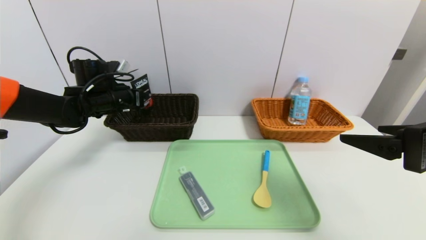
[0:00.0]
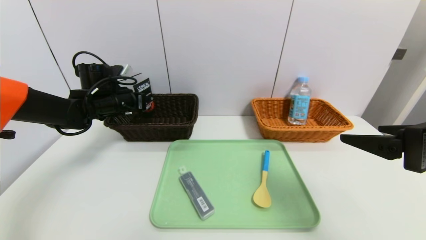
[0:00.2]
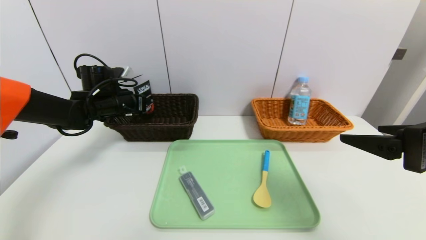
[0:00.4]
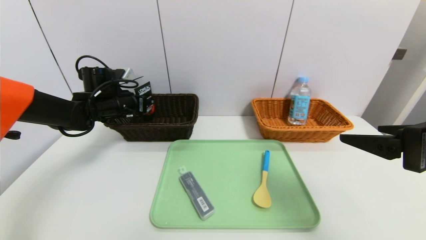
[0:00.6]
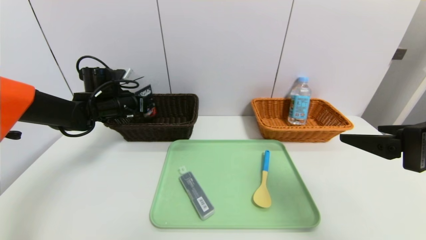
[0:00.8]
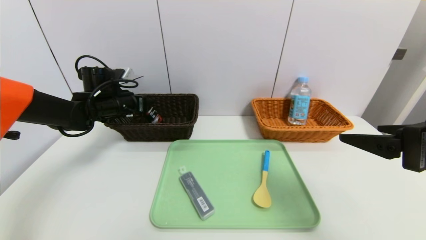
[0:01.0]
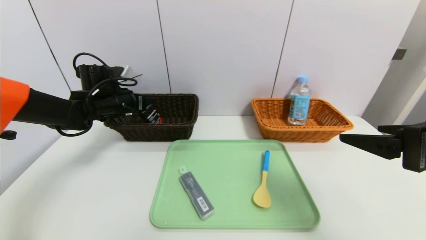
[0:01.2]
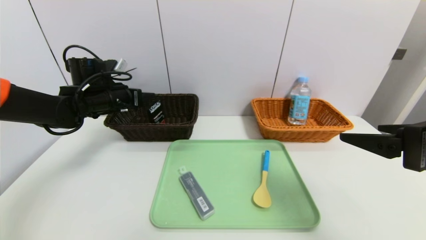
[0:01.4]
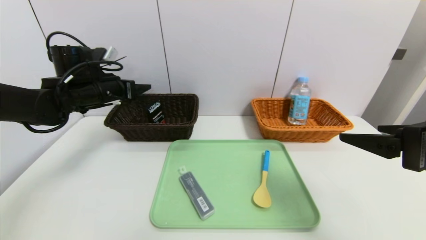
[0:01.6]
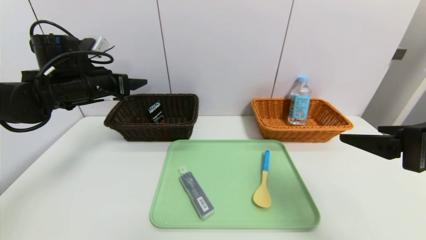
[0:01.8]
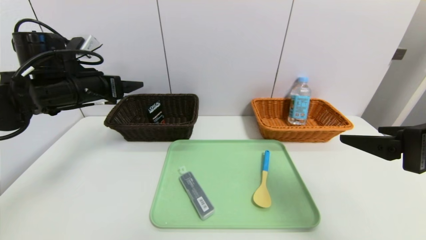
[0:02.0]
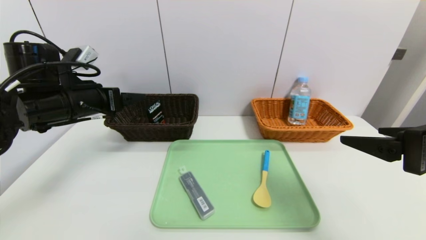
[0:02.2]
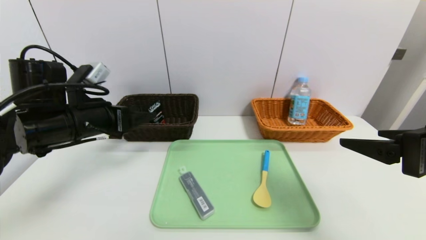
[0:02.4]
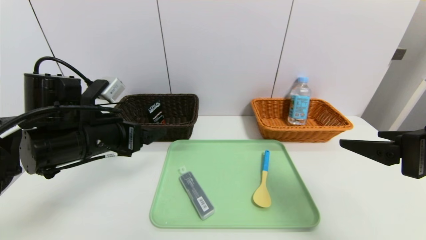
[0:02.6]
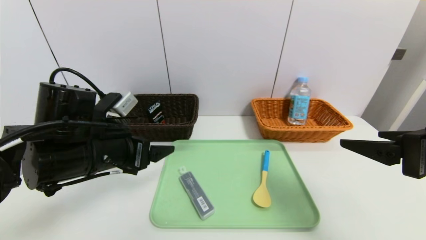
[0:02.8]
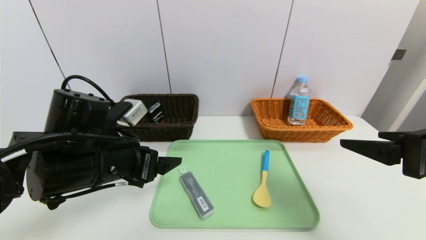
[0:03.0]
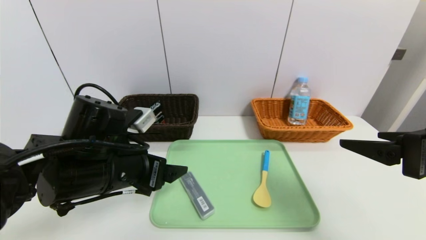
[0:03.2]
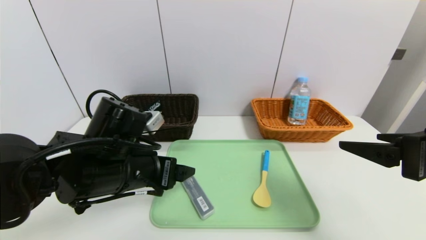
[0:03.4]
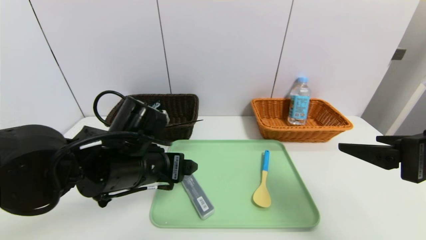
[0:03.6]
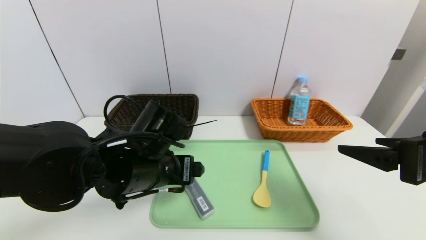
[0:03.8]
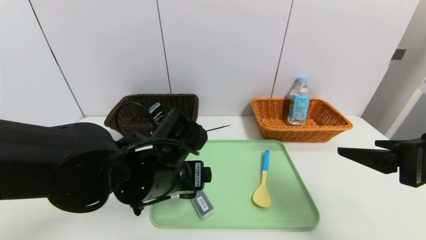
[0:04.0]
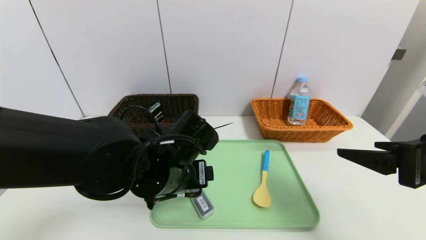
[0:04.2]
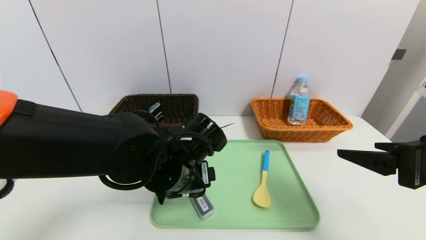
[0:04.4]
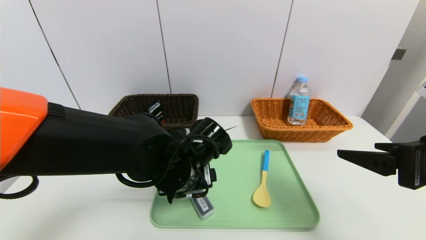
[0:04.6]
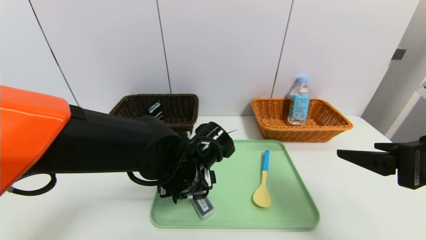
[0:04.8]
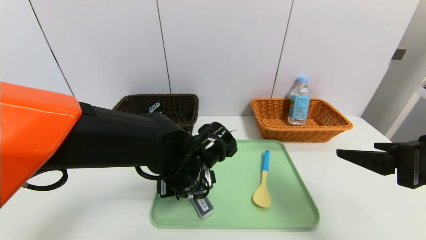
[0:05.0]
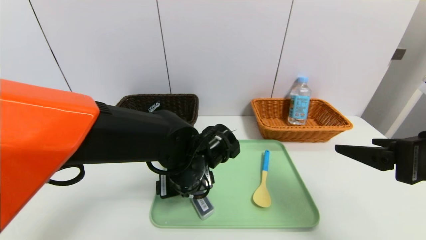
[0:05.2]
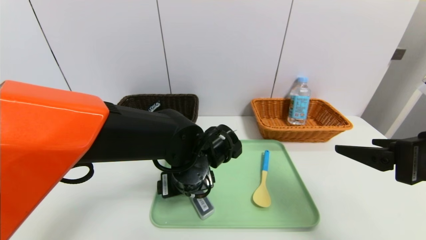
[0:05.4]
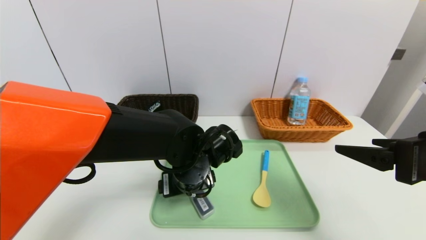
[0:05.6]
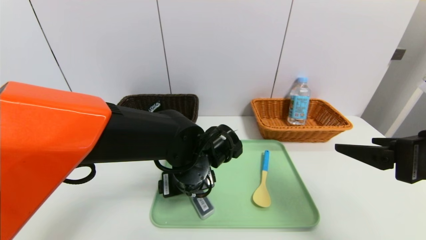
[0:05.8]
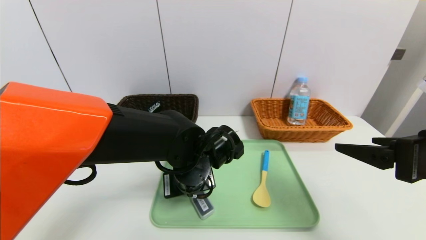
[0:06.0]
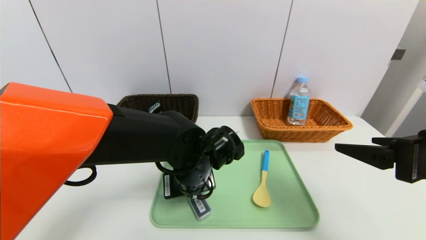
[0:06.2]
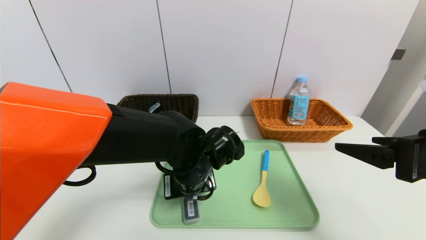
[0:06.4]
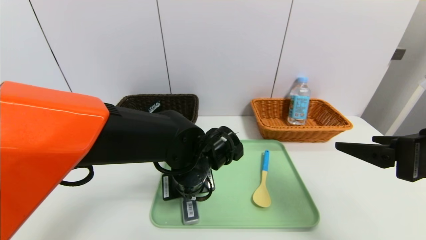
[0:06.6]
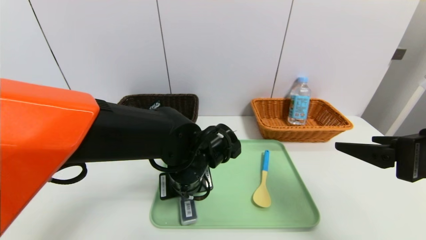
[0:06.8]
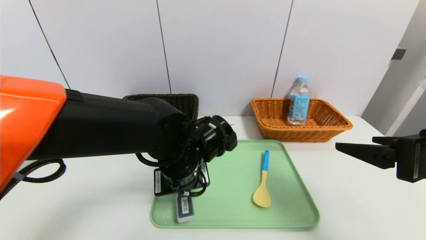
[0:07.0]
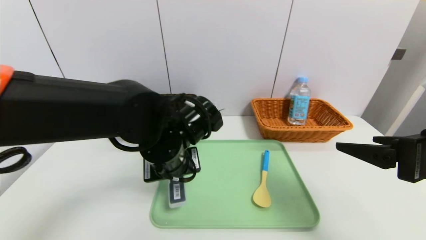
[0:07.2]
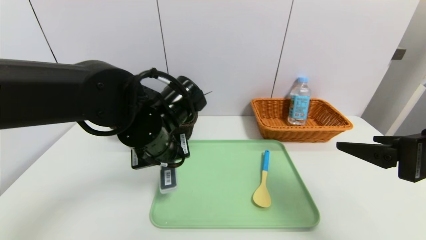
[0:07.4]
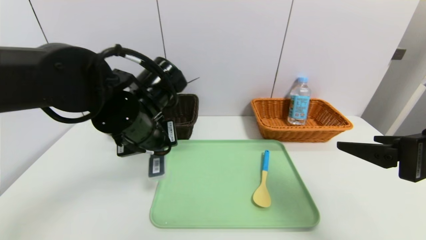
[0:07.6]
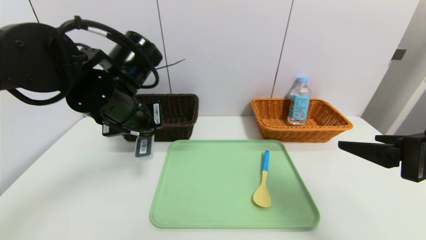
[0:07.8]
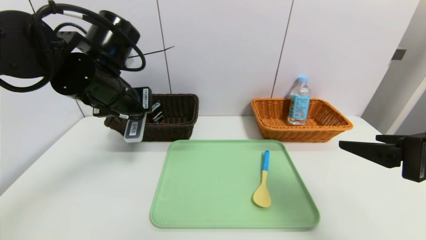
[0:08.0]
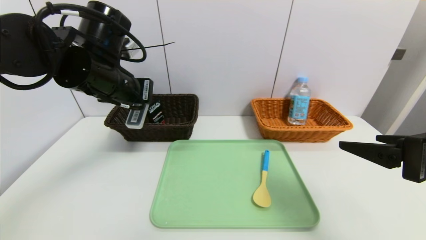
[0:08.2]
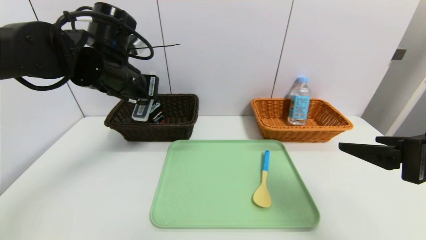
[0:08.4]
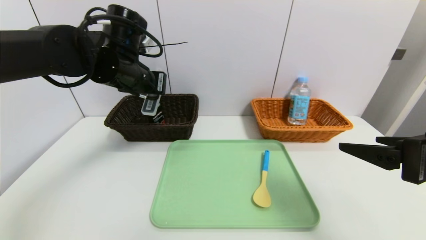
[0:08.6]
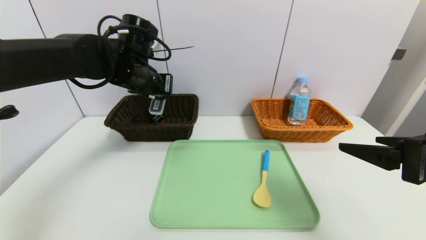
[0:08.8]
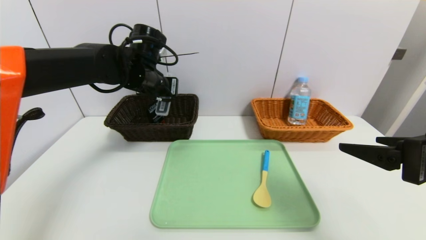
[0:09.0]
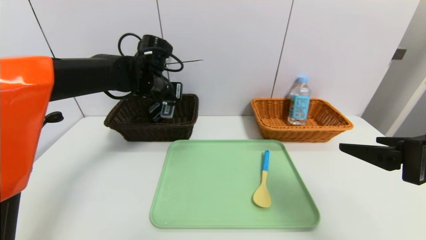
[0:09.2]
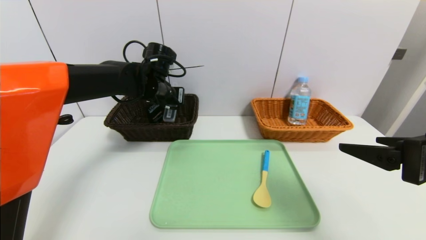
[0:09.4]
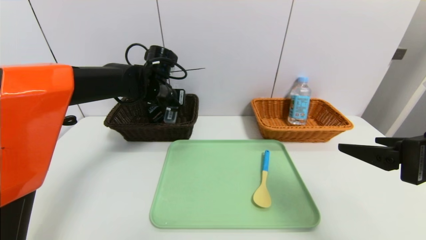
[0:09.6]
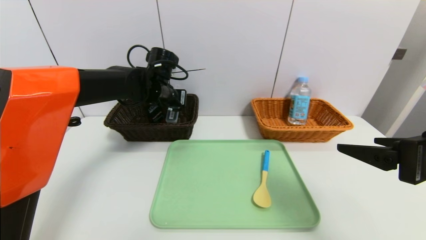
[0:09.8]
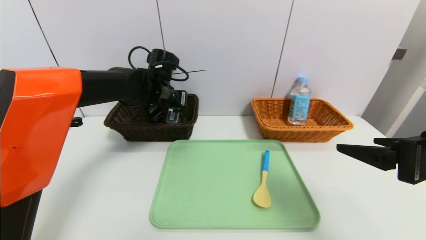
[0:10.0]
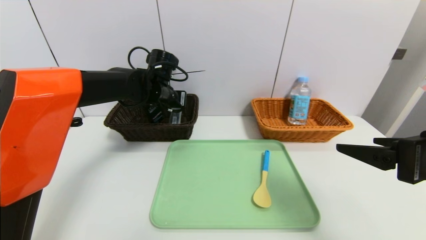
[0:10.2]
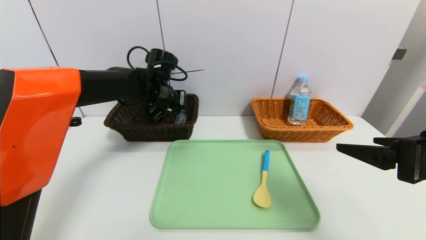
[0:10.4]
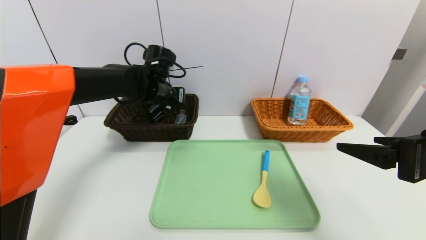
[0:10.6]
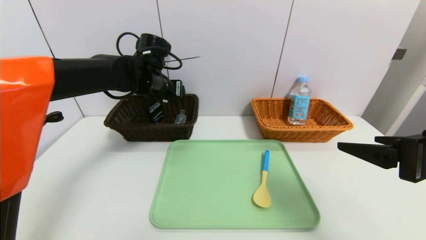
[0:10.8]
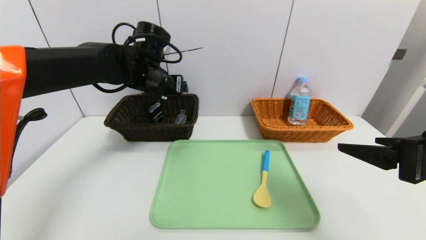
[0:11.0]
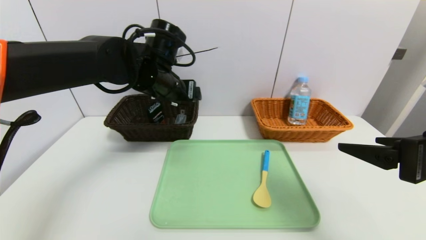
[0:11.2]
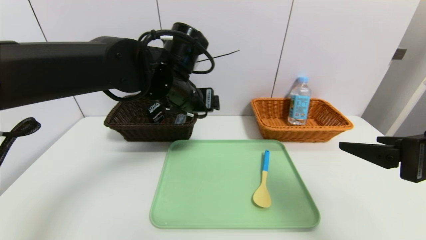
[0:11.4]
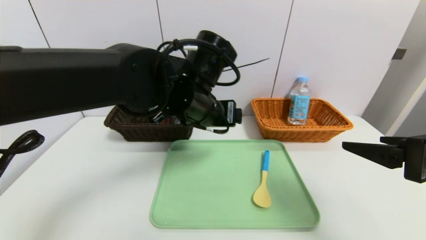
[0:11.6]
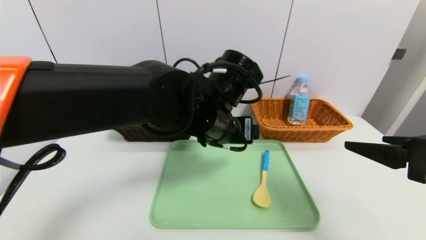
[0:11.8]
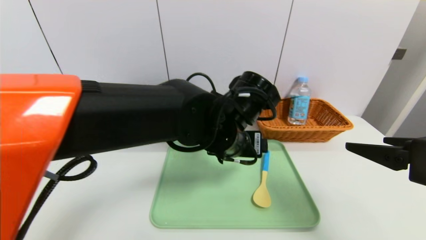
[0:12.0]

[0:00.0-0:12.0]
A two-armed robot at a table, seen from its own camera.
Task of the whole recording: place the food in the right basket with the right gripper, and place the non food items in the left basket with the left gripper.
Step, 0:01.6 to 0:10.6: Grasp the compass and put it in the left basket.
0:00.0 to 0:01.6: The left gripper opens.
0:01.6 to 0:03.0: The left gripper shifts approximately 20 cm backward and to the right.
0:03.0 to 0:04.4: The left gripper moves to the right, roughly 10 cm.
0:04.4 to 0:06.0: The grippers move only a little.
0:06.0 to 0:07.6: The left gripper travels upward and to the left by roughly 15 cm, and closes its fingers.
0:07.6 to 0:09.0: The left gripper moves forward, approximately 15 cm.
0:09.0 to 0:10.4: The left gripper shifts by some 5 cm.
0:10.4 to 0:12.0: The left gripper is displaced backward and to the right by about 25 cm, and opens its fingers.

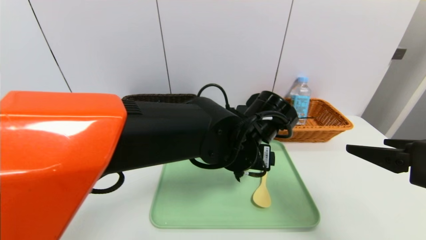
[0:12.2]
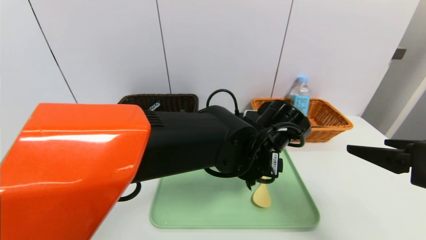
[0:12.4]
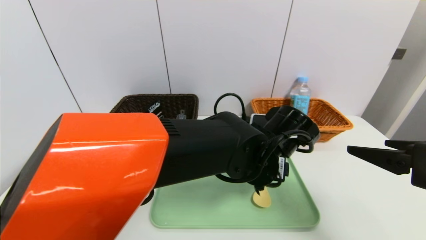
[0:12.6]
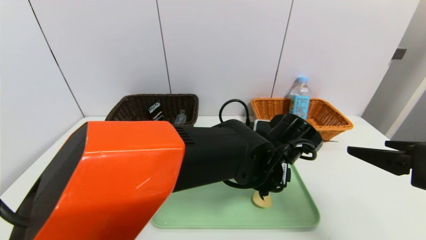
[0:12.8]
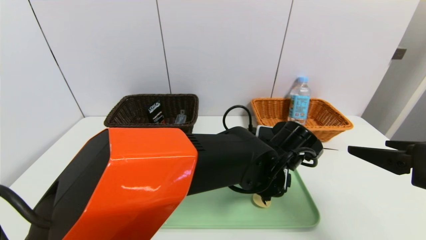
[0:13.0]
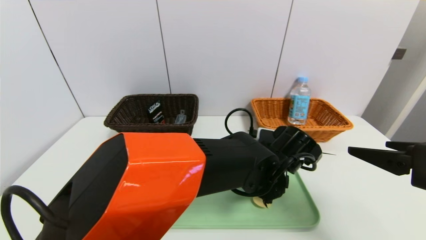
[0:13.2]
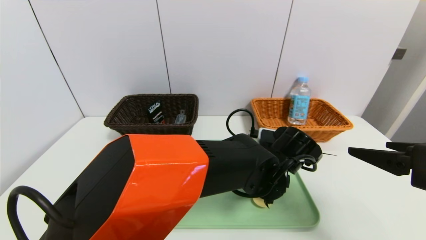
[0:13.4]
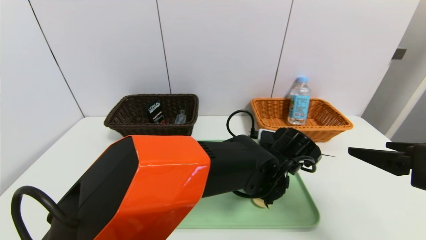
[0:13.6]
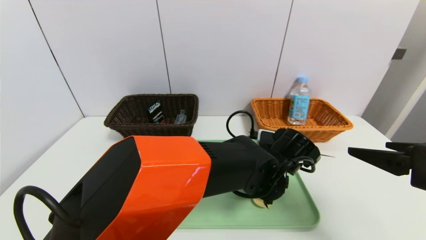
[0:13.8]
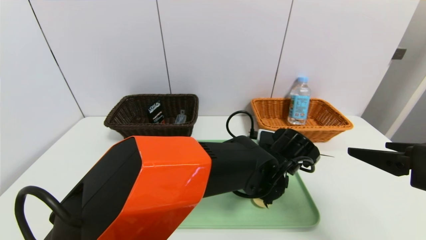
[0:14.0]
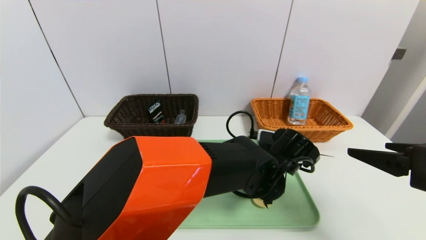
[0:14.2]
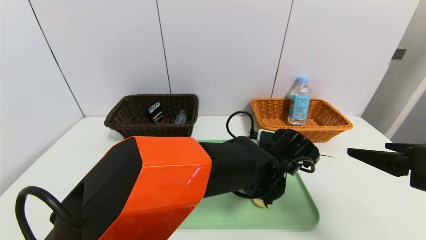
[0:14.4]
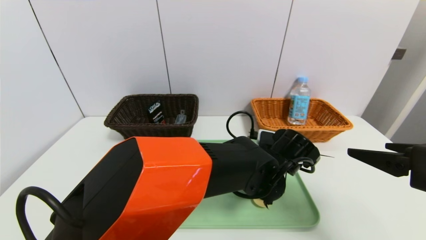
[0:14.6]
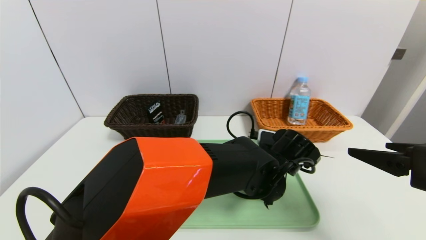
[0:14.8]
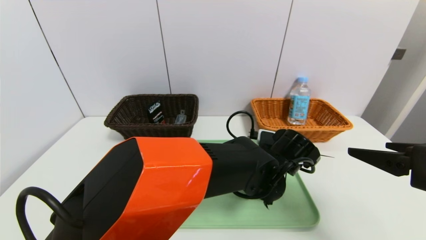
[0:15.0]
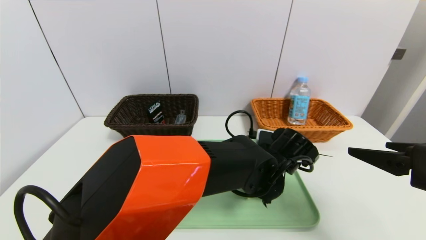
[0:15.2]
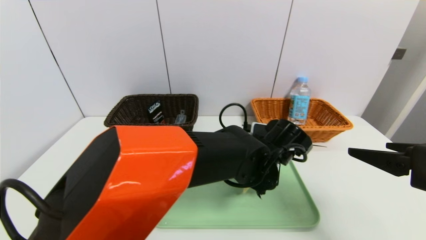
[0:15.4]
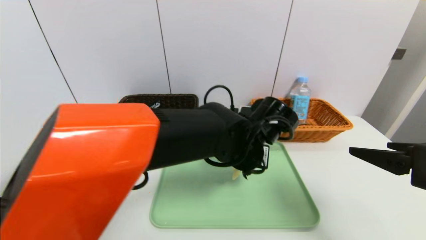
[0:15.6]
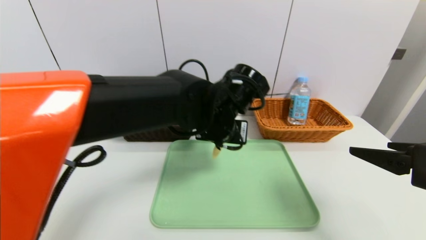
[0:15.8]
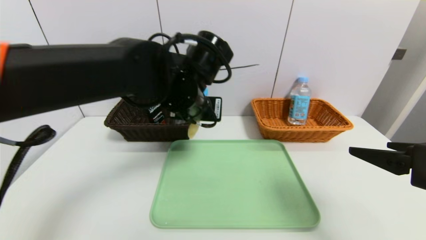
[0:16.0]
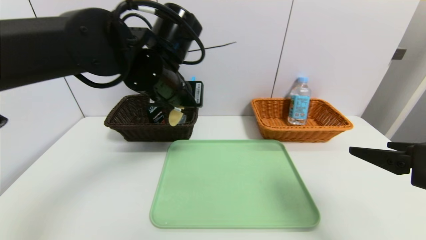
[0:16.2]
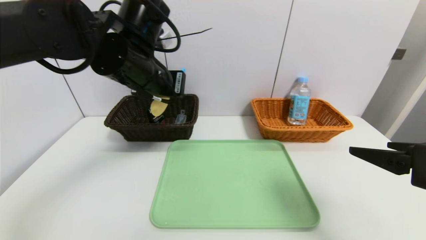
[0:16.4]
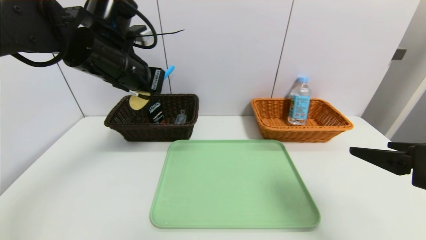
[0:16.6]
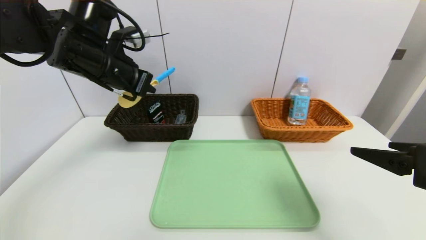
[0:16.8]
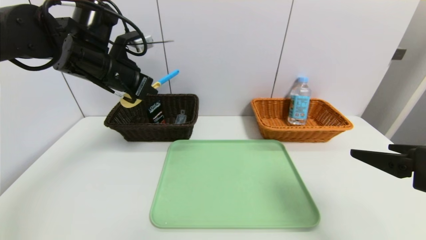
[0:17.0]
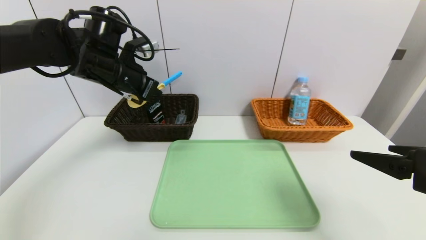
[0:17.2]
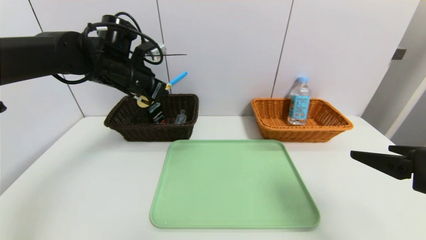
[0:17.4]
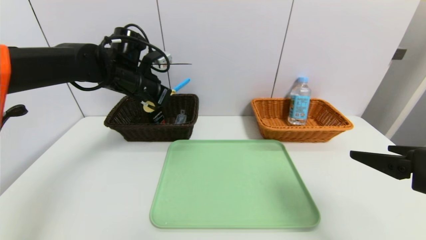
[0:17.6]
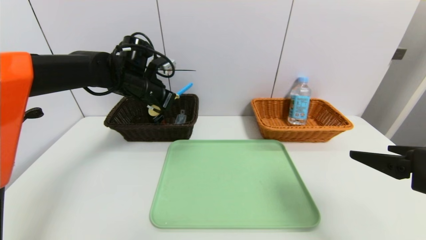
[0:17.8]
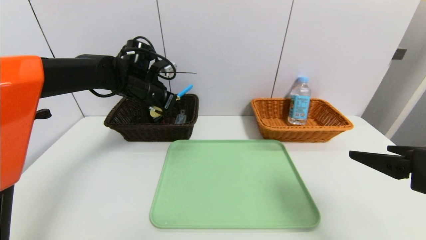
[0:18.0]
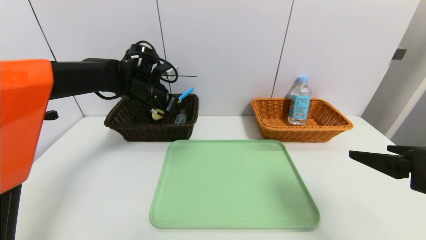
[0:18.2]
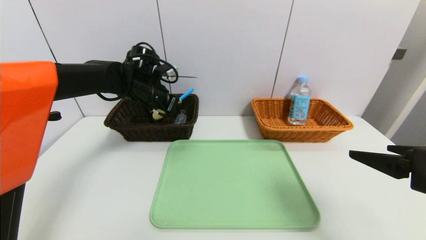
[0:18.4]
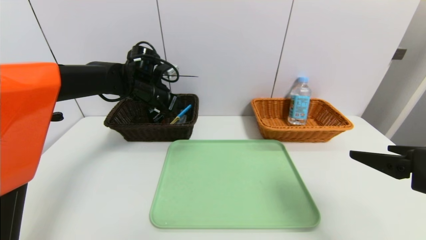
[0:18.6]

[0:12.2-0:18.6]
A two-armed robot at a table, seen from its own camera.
Task of the whole recording: place the food in the right basket with the right gripper, and place the non food items in the left basket with the left gripper.
Step, 0:12.2 to 0:18.6: Grasp the spoon and put it in the left basket.
0:12.2 to 0:13.8: The left gripper shifts about 10 cm downward and to the right.
0:13.8 to 0:15.4: The left gripper closes.
0:15.4 to 0:17.0: The left gripper heads to the left and upward, covering approximately 35 cm.
0:17.0 to 0:18.6: The left gripper heads forward and downward, covering roughly 10 cm, and opens its fingers.
